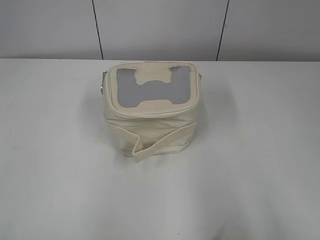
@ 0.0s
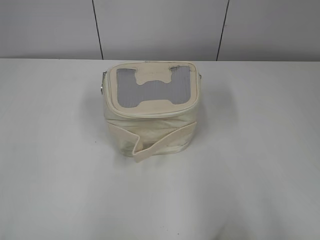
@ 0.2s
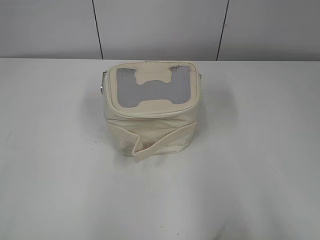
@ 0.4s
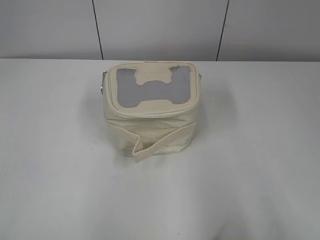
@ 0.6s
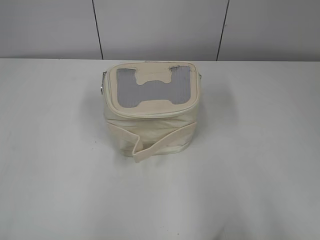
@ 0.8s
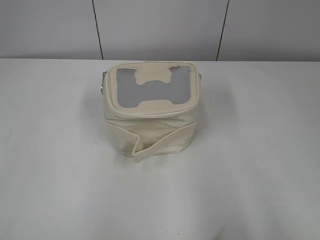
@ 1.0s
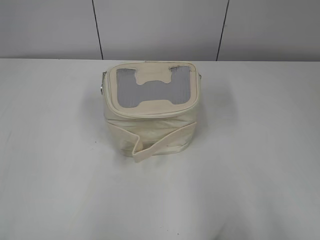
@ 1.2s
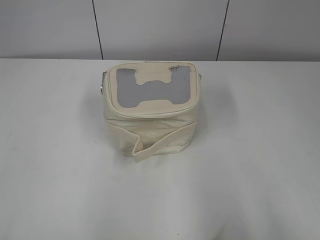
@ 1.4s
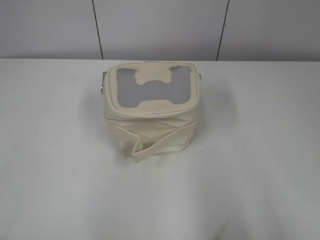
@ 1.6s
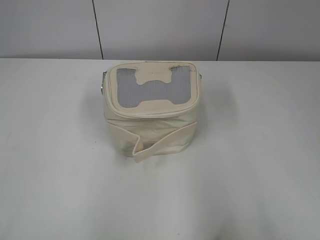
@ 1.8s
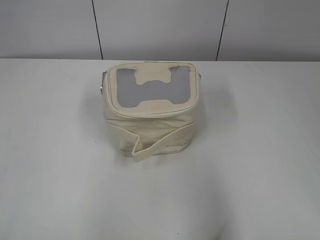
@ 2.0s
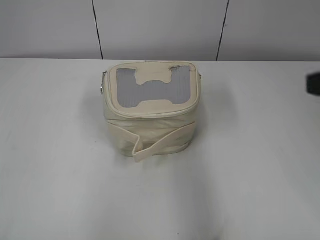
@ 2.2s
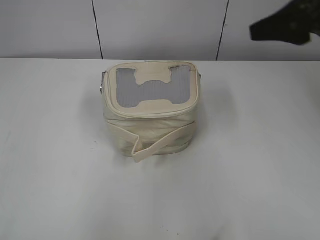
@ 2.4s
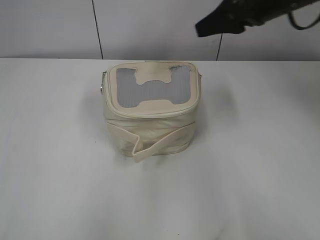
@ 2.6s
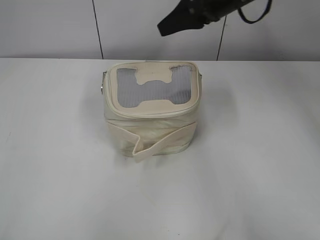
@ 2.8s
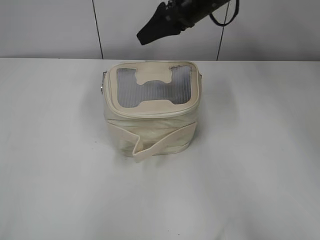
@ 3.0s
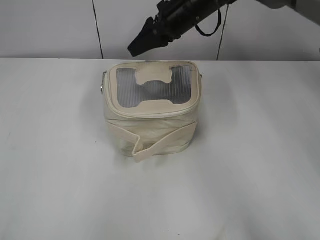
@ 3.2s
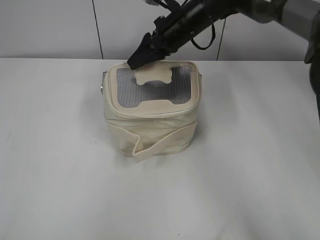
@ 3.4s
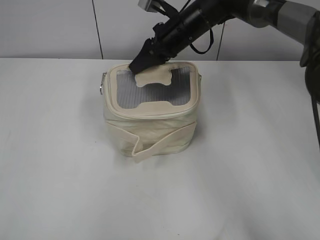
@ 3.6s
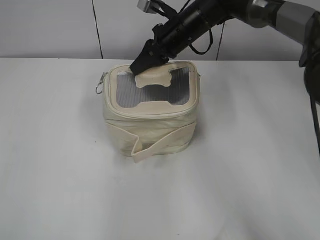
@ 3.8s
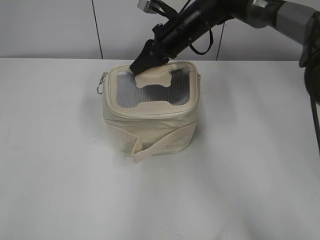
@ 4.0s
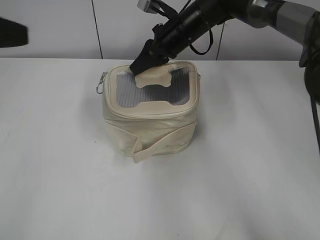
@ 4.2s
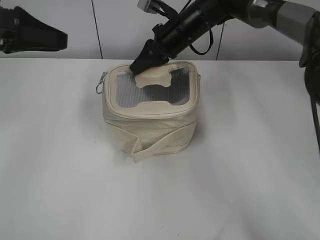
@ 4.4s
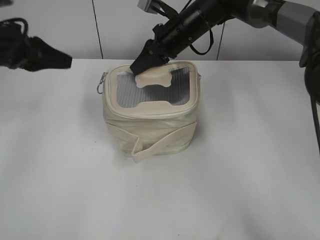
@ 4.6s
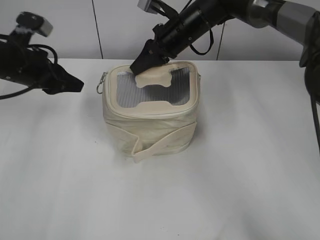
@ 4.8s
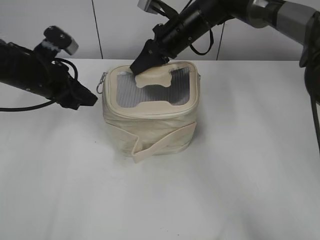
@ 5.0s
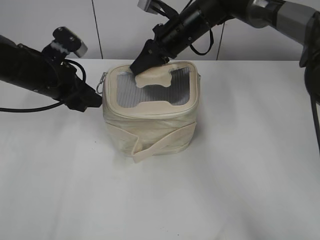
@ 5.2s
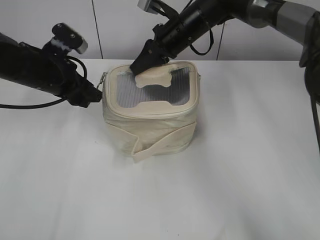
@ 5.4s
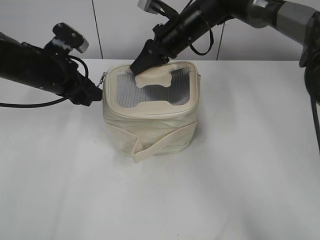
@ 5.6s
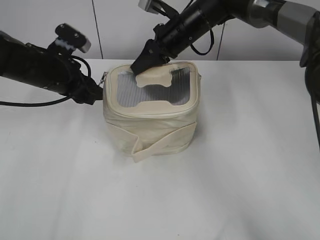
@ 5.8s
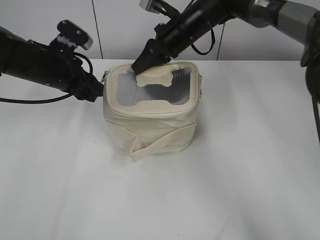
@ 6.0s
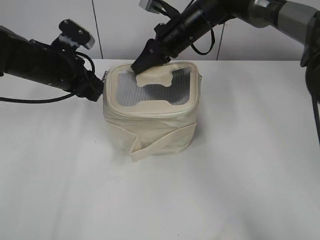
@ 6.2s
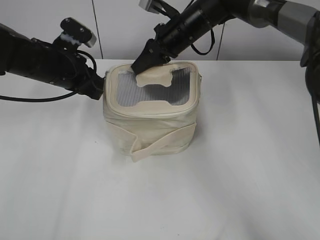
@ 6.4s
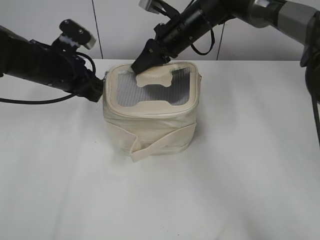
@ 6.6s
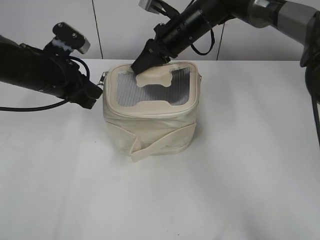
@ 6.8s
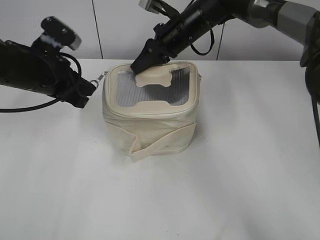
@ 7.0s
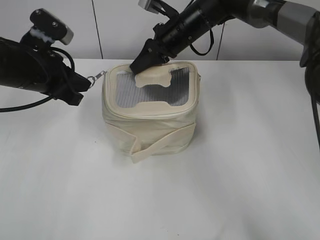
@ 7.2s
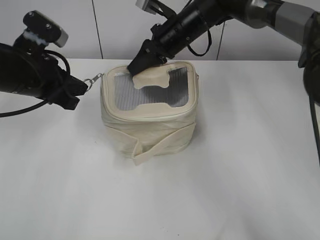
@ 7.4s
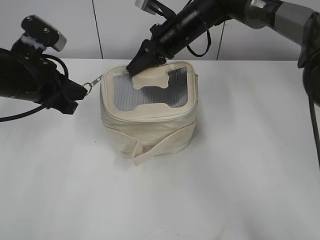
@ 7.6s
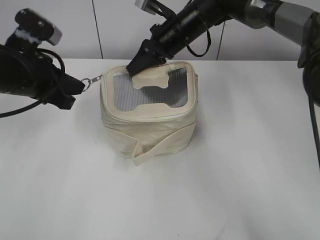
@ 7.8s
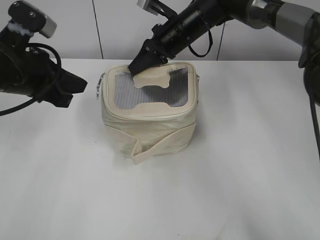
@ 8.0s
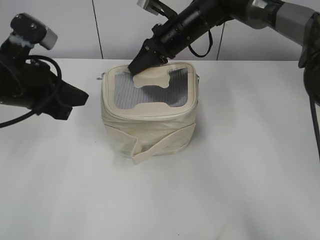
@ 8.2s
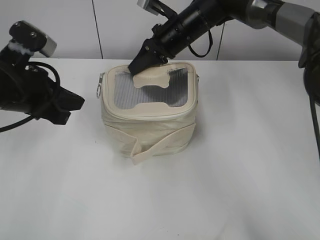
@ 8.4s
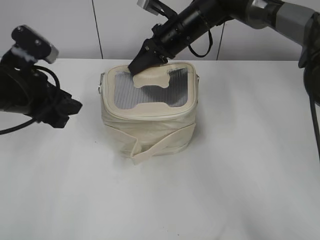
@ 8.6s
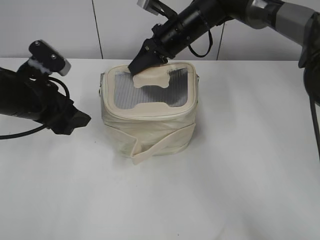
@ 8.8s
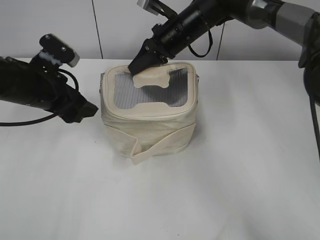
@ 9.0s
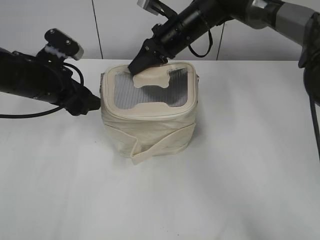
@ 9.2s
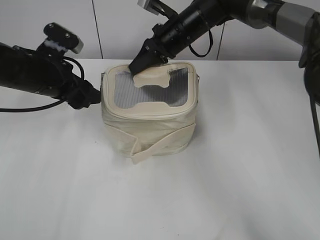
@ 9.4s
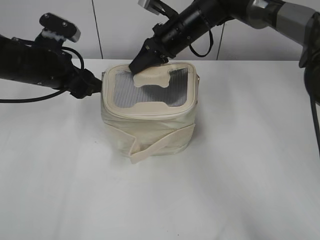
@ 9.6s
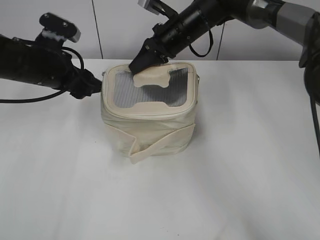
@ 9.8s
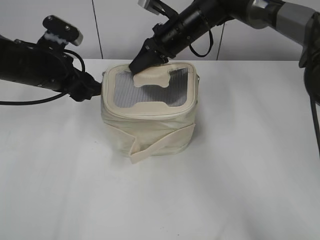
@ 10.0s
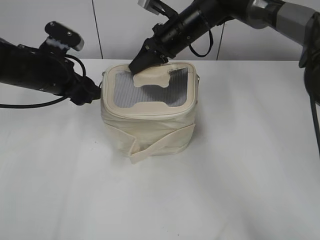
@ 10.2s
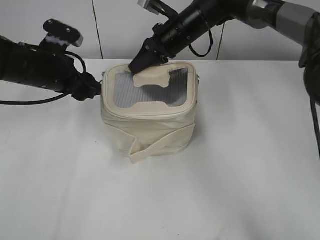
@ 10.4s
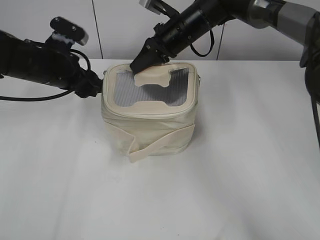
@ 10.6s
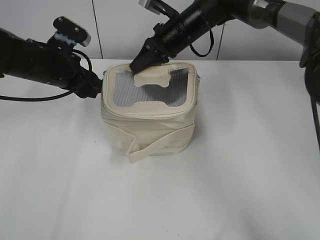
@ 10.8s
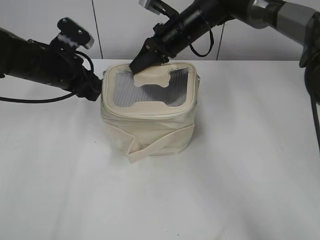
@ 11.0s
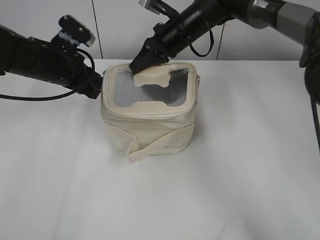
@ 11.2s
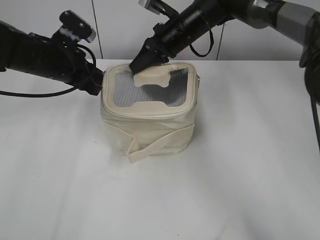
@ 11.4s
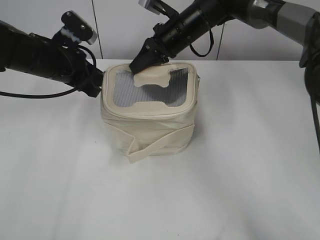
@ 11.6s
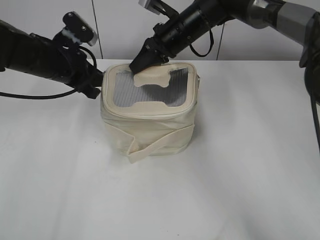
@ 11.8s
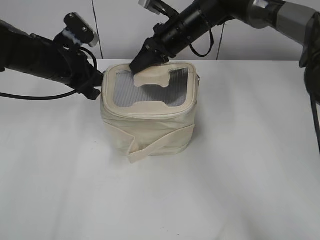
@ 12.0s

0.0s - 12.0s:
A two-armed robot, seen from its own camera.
1.6s - 3.0s: The right gripper travels forward and to the left by about 50 cm.
3.0s - 4.4s: The left gripper goes about 30 cm forward, while the right gripper moves downward, about 5 cm, and closes up.
4.4s - 6.0s: The left gripper shifts some 15 cm downward, forward and to the right.
6.0s - 7.6s: The left gripper goes some 5 cm backward, and closes up.
7.6s - 9.0s: The left gripper opens up.
9.0s - 10.4s: The grippers make only small movements.
10.4s - 12.0s: The left gripper closes up.

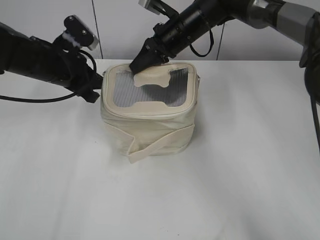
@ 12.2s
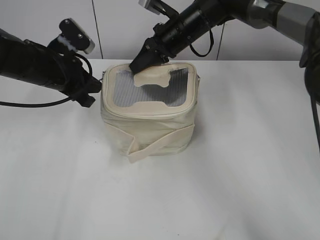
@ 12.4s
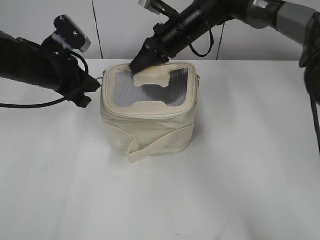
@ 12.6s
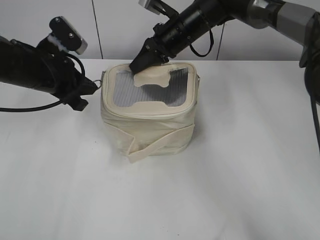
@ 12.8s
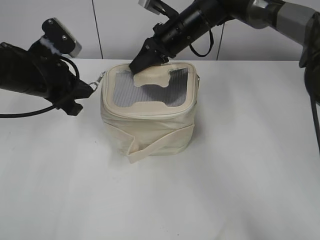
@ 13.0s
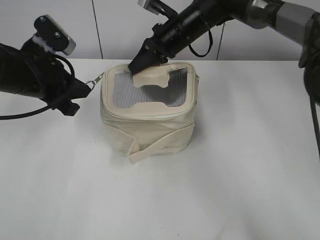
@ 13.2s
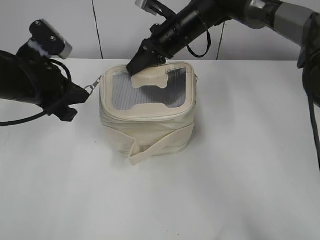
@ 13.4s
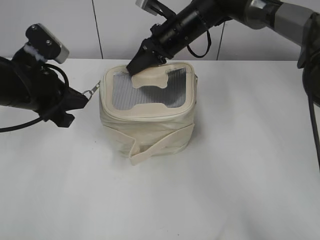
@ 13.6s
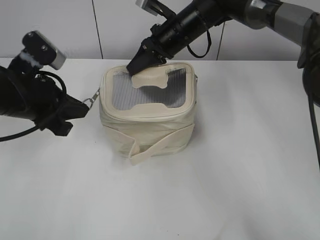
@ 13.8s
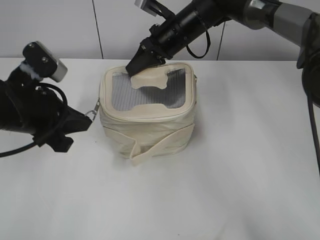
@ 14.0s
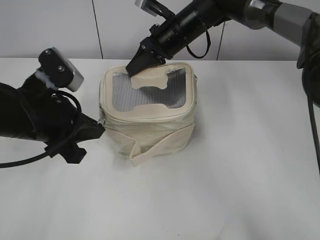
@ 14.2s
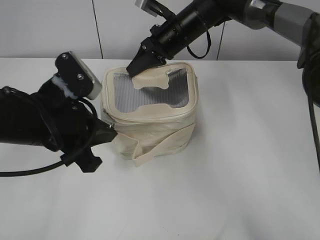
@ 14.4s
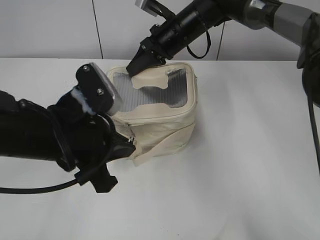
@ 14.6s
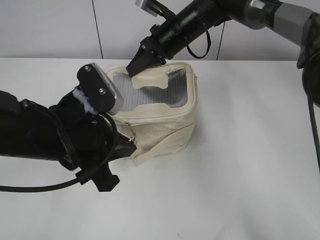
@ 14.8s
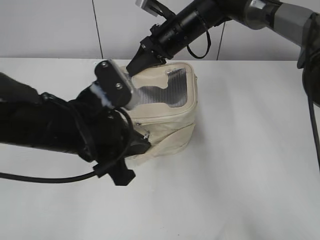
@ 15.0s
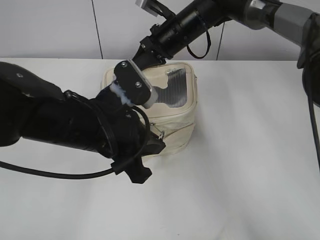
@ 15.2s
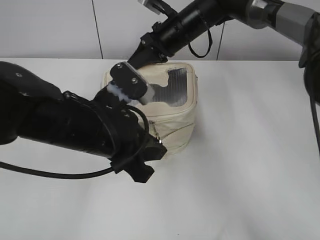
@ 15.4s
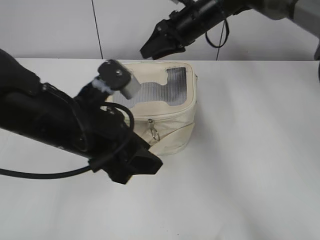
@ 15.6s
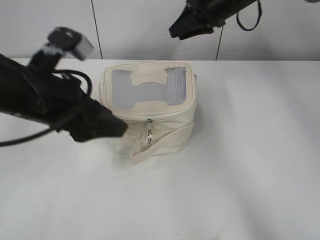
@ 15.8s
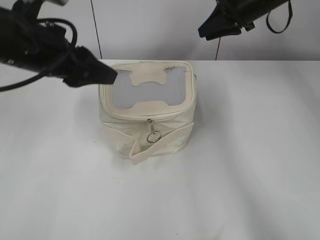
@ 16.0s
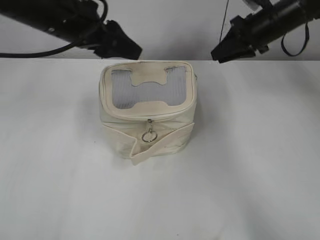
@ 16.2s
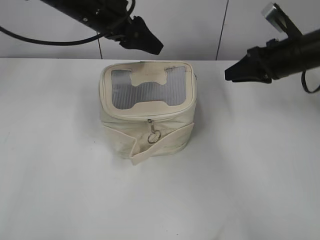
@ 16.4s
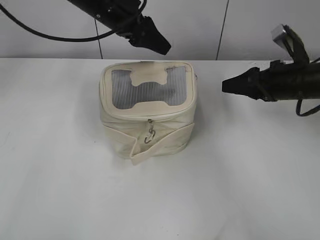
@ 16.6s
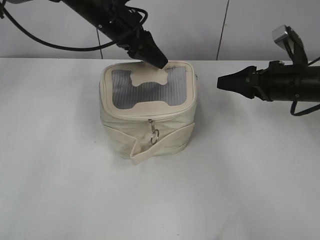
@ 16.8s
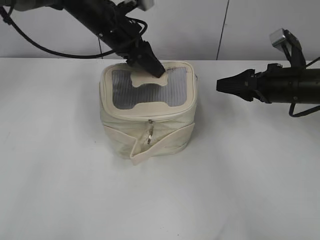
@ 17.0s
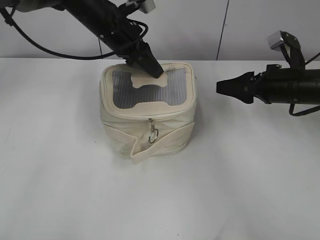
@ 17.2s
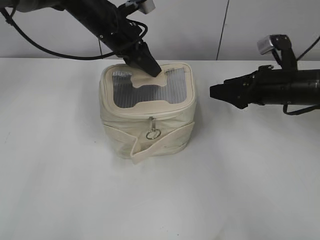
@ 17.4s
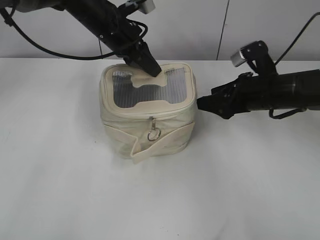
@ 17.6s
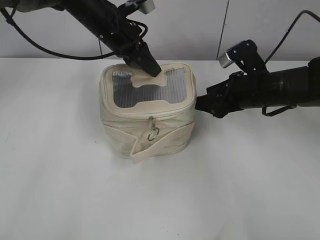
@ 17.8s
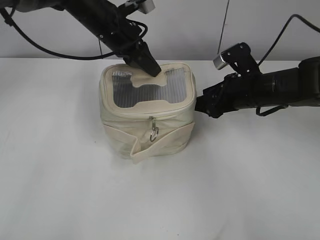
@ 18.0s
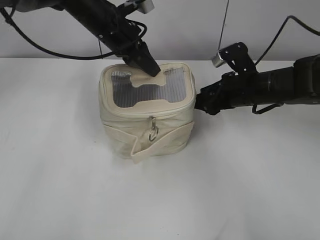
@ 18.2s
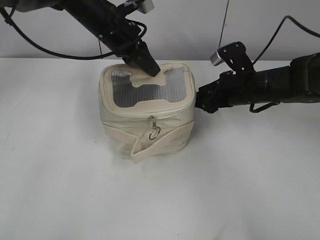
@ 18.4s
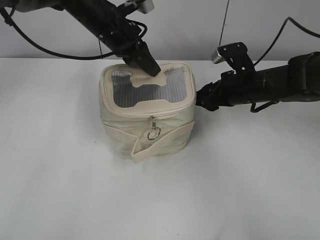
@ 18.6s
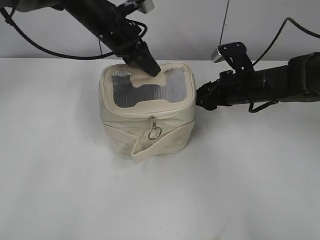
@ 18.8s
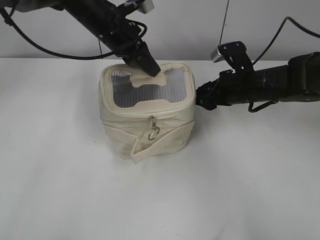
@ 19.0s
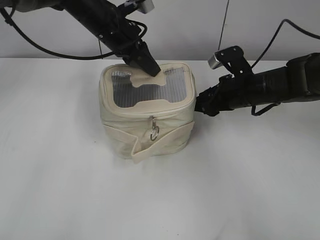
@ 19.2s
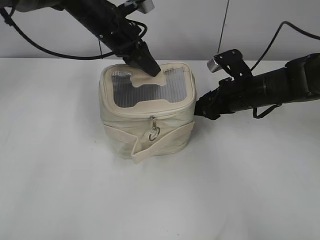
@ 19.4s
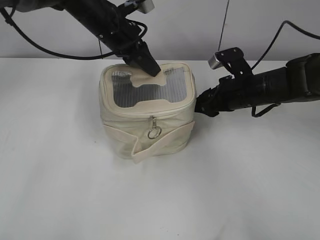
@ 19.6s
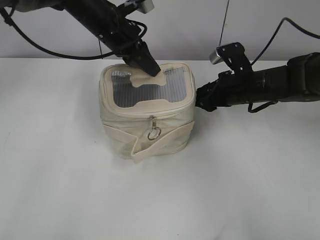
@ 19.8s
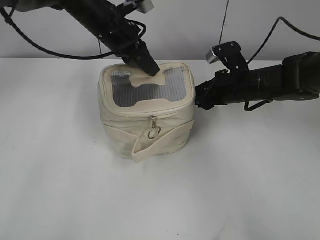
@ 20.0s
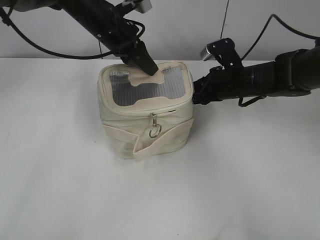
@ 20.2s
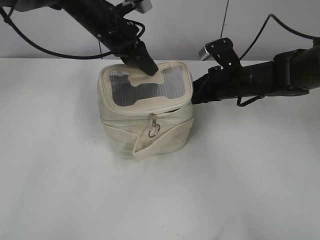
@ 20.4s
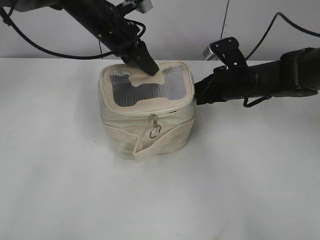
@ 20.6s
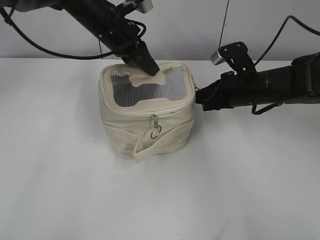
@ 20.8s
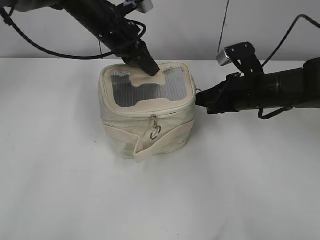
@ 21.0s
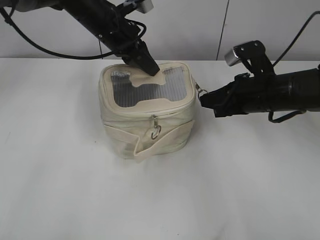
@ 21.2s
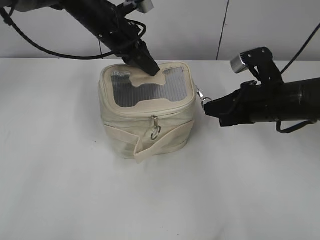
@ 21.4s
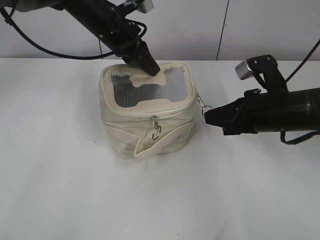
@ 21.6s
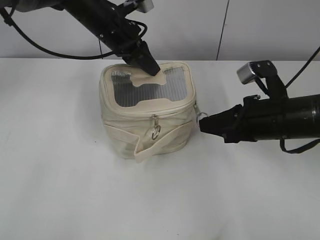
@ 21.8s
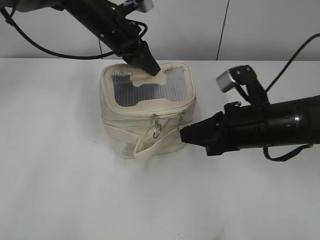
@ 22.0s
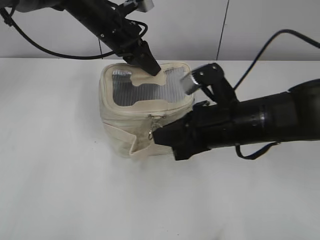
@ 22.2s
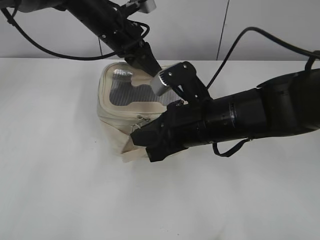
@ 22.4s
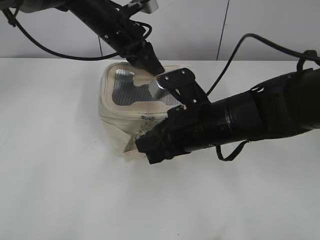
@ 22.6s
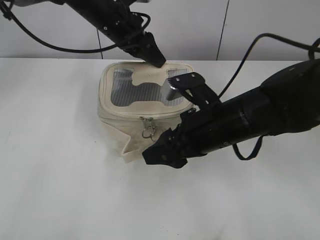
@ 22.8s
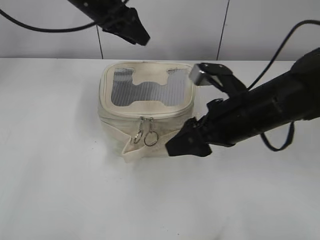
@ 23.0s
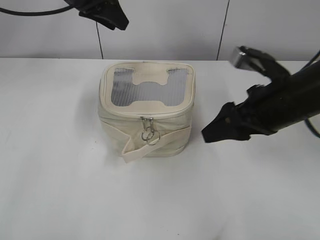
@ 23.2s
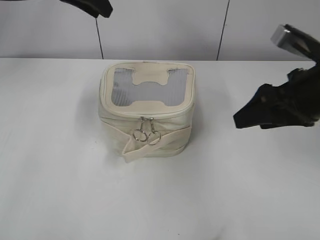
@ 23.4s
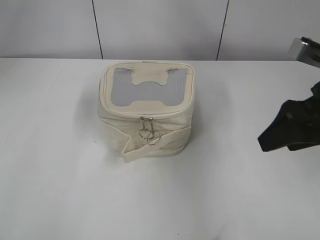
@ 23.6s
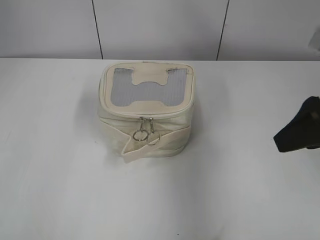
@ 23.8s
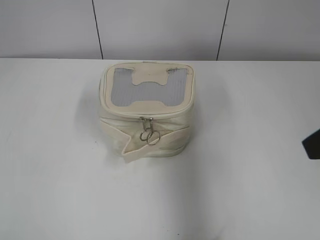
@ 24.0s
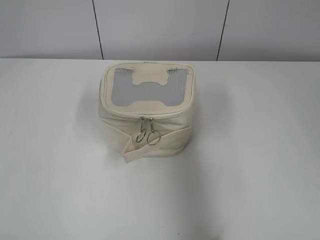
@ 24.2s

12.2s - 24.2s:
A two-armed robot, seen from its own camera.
Step, 12.2s - 15.2s: Zip up the bag with your left hand.
Step, 15.8s - 22.6s: Zip up the bag with your right hand.
Step, 22.8s - 23.0s: Hold the bag with your left hand.
12.2s - 13.8s: The left gripper travels backward by about 10 cm.
13.8s - 15.2s: The left gripper goes some 15 cm to the right and backward.
15.2s - 16.6s: The left gripper shifts approximately 20 cm forward, and opens its fingers; the right gripper shifts roughly 25 cm to the right and backward, and opens its fingers.
16.6s - 18.2s: The right gripper is displaced to the left by some 5 cm; the left gripper closes.
18.2s - 19.8s: There are only small adjustments of the grippers.
19.8s - 21.2s: The right gripper moves backward, roughly 5 cm, and closes its fingers.
21.2s - 22.6s: The right gripper goes some 15 cm to the left and backward.
22.6s - 24.2s: The left gripper is displaced backward, to the left and upward by roughly 40 cm, while the right gripper goes roughly 25 cm to the right, upward and backward, and opens its fingers.
